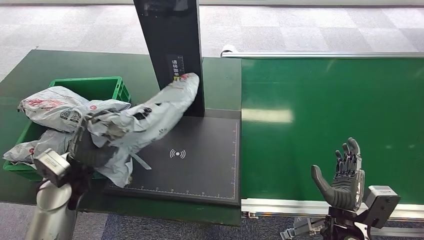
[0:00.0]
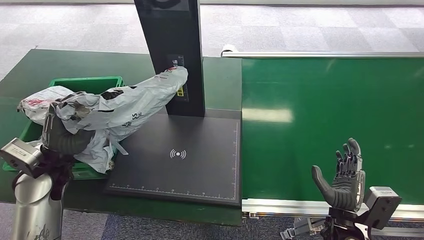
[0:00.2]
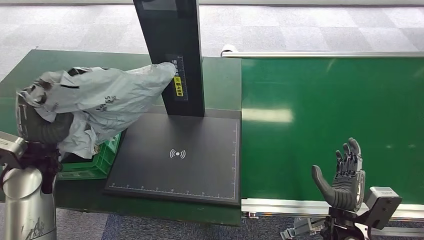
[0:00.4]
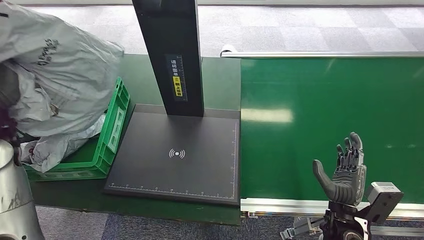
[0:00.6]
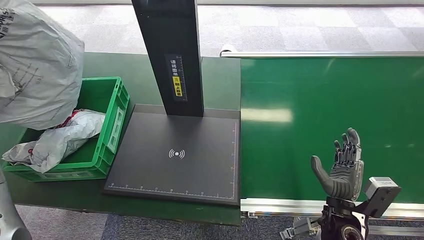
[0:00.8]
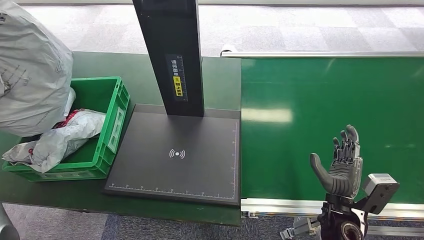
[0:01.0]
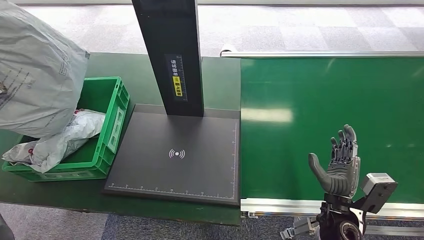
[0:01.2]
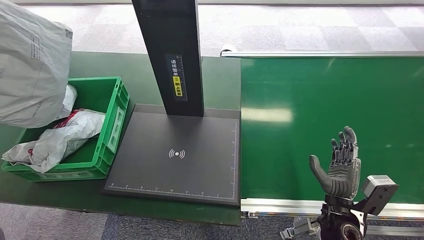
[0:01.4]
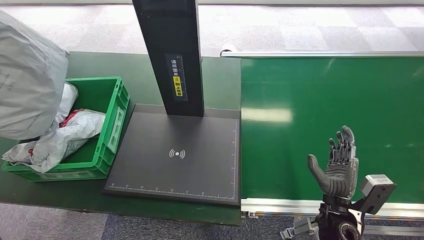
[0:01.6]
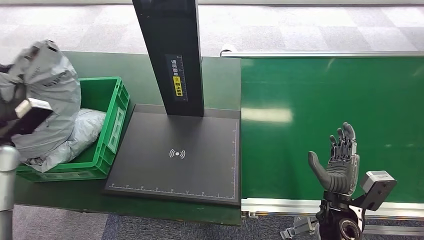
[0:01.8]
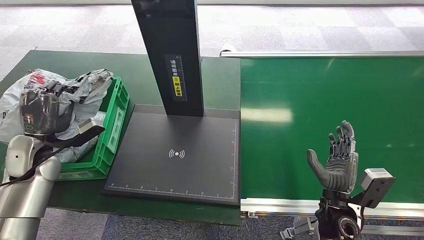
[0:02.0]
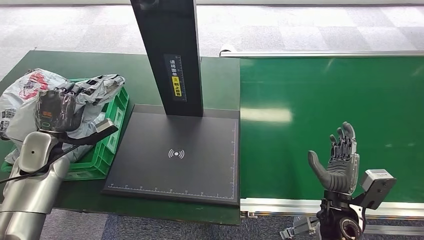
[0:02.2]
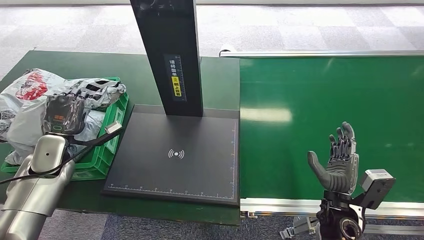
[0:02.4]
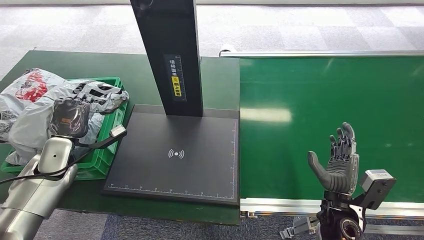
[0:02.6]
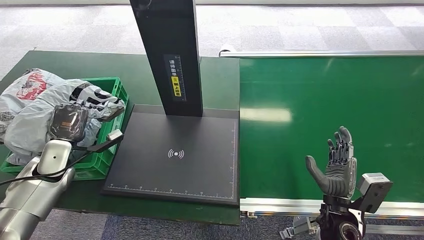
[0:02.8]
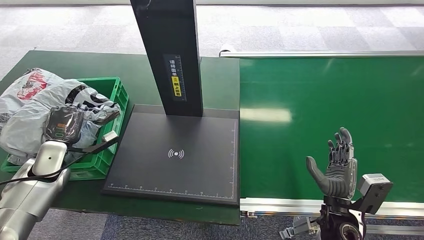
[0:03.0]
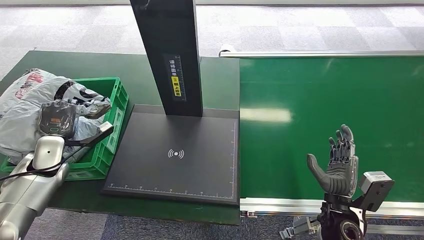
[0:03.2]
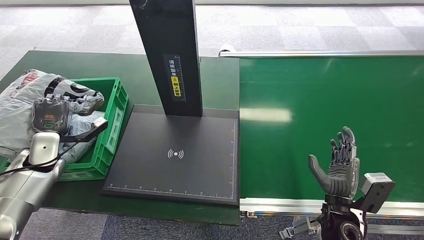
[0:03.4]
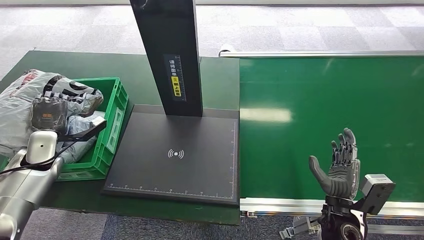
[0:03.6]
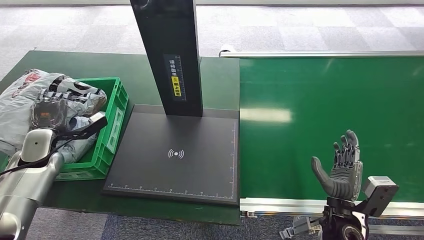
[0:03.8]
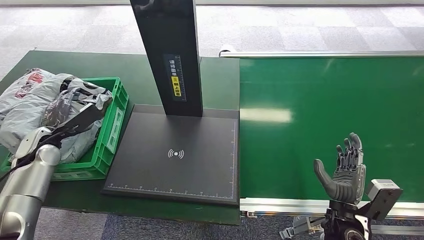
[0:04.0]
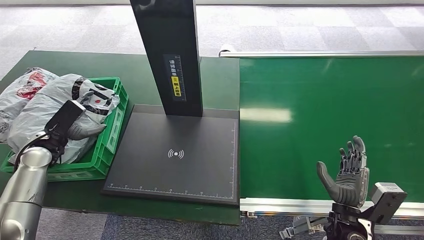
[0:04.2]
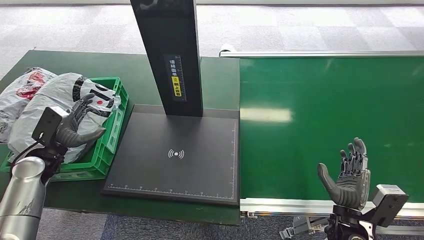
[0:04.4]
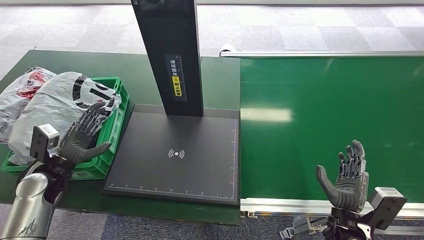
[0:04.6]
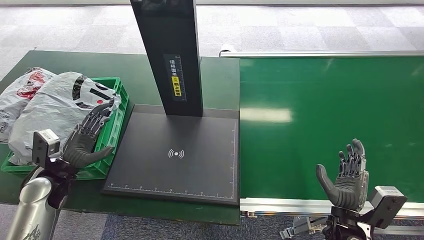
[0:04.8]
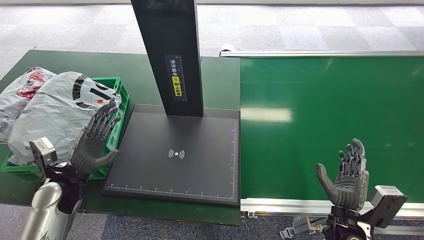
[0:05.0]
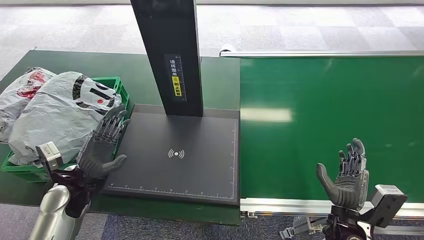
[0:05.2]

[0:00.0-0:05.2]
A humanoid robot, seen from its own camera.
Step, 0:01.0 to 0:05.0: Place the package into the parcel locker.
0:01.8 to 0:03.4: The left hand is displaced downward by about 10 cm.
0:03.4 to 0:05.2: The left hand heads to the right and backward, covering approximately 15 cm.
